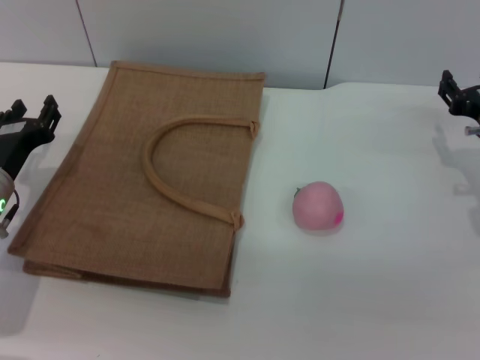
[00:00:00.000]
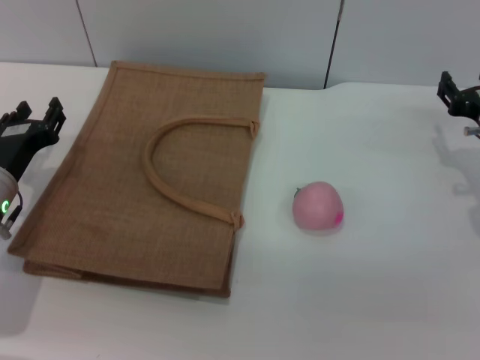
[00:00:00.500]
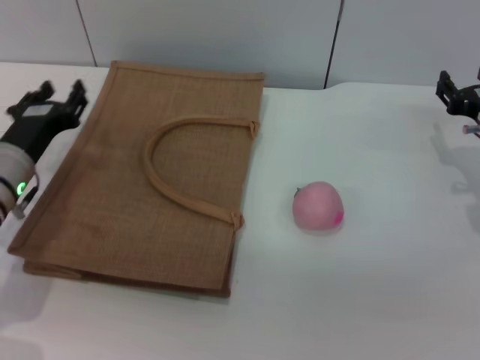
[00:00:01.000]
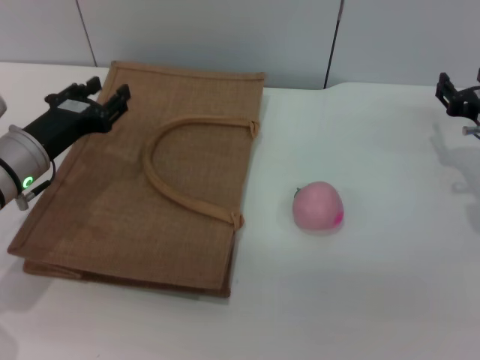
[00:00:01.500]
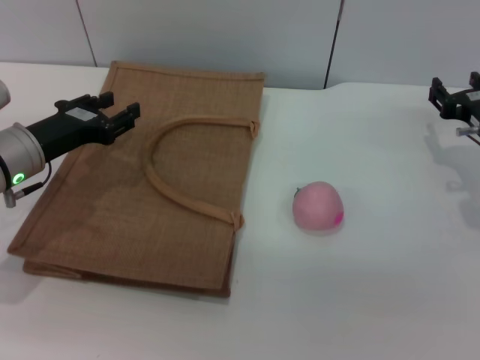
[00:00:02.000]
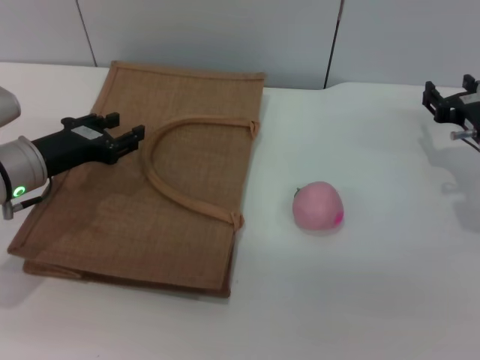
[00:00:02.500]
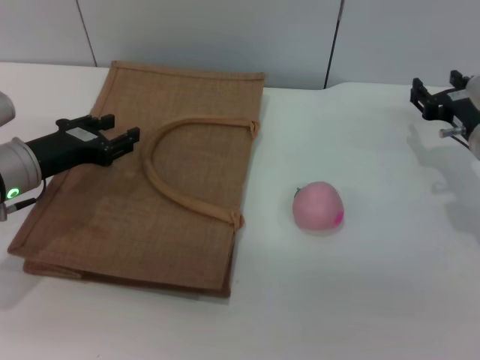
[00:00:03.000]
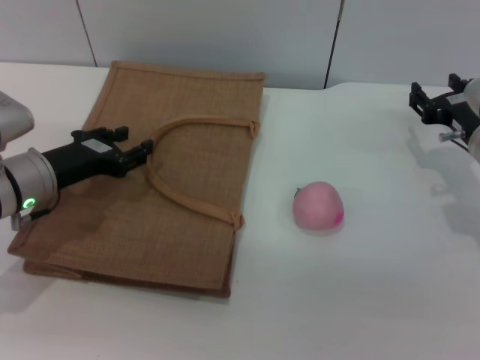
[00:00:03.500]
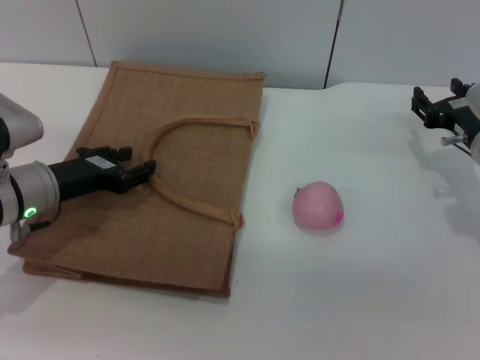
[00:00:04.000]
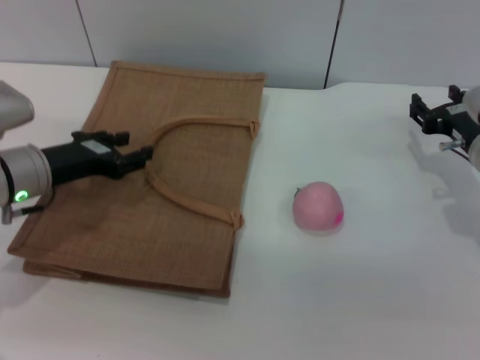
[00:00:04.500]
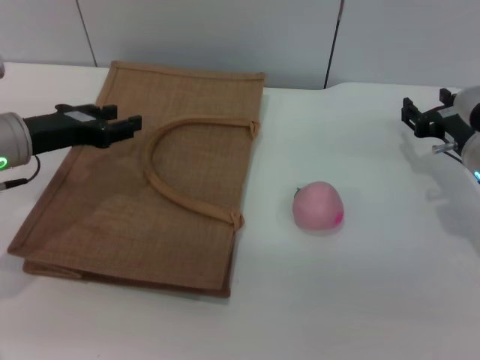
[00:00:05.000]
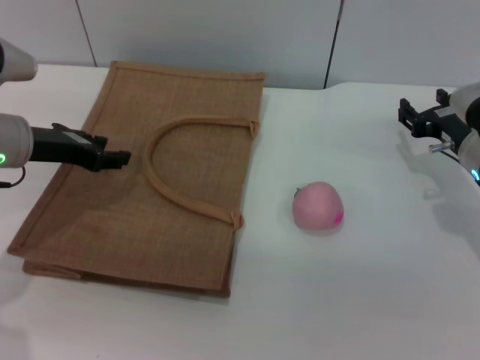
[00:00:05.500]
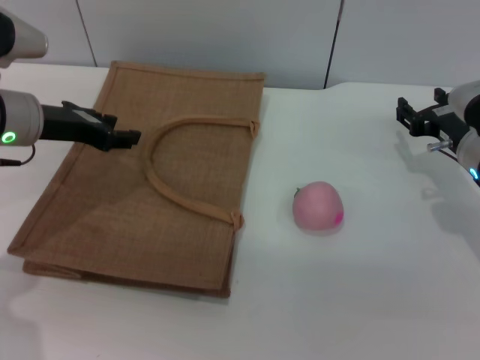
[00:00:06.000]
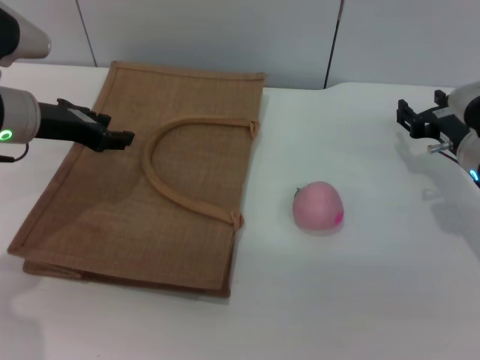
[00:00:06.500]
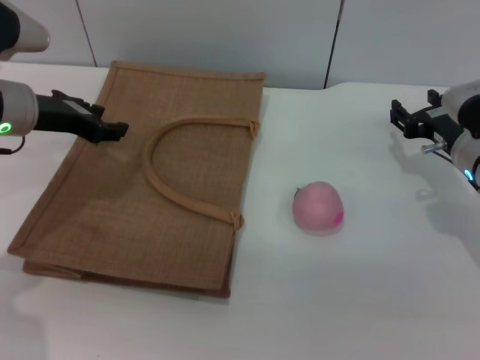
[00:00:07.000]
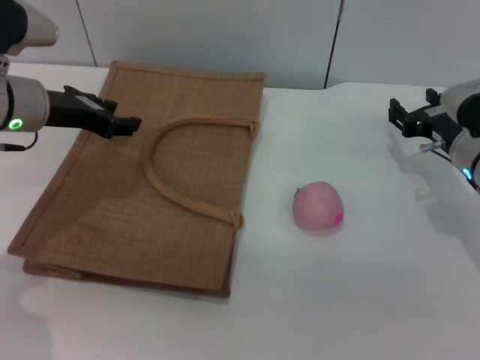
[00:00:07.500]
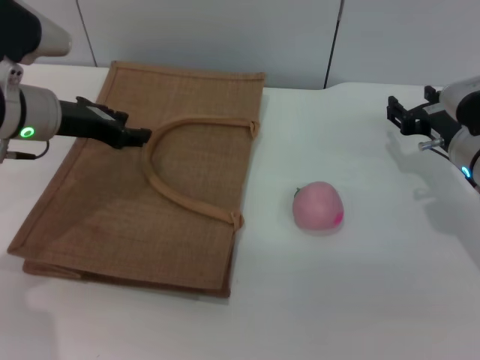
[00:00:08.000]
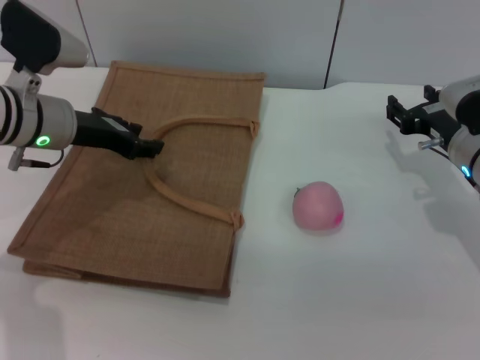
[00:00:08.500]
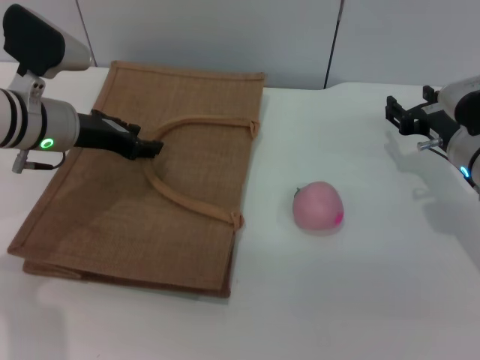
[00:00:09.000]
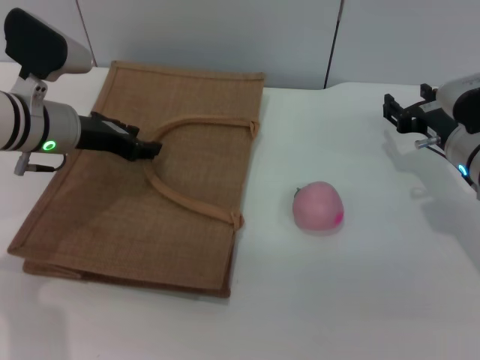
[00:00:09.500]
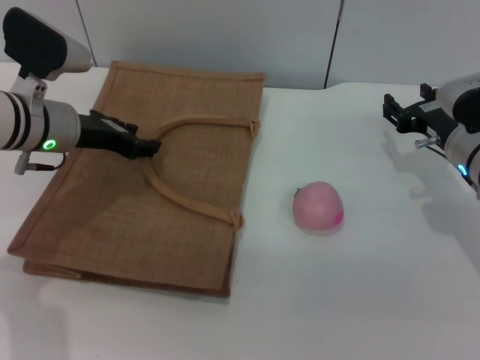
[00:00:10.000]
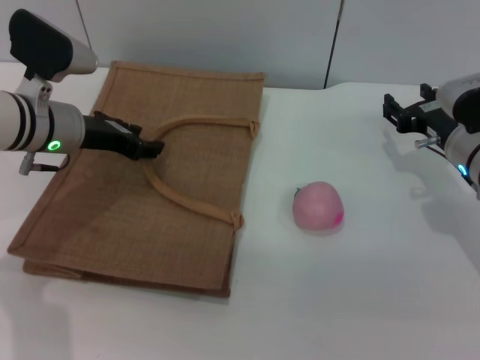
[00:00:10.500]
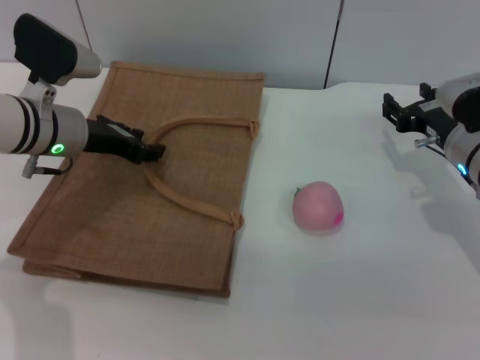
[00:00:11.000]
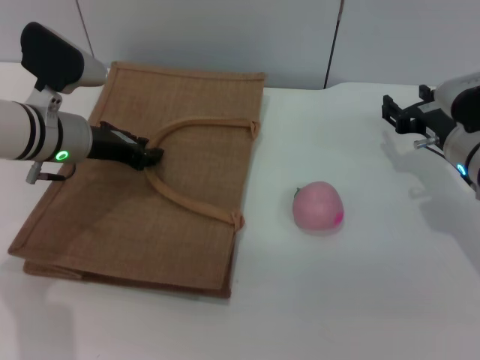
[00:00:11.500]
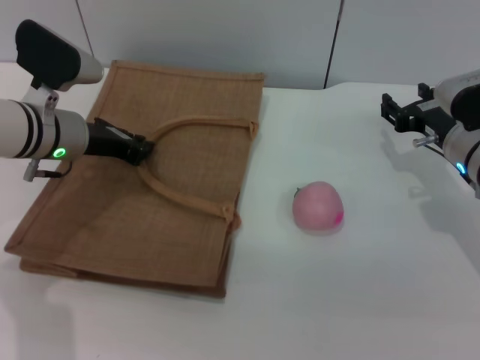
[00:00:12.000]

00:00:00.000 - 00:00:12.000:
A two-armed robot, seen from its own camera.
Task of the whole recording: pick up the peach from the table and place it in the brown handbag.
00:00:00.000 - 00:00:02.000: The left gripper moves some 5 cm.
00:00:02.000 - 00:00:04.000: The grippers make only small movements.
00:00:04.000 - 00:00:06.000: The left gripper goes about 10 cm upward.
00:00:06.000 - 00:00:10.000: There are only small adjustments of the grippers.
00:00:10.000 - 00:00:12.000: The left gripper closes its fingers.

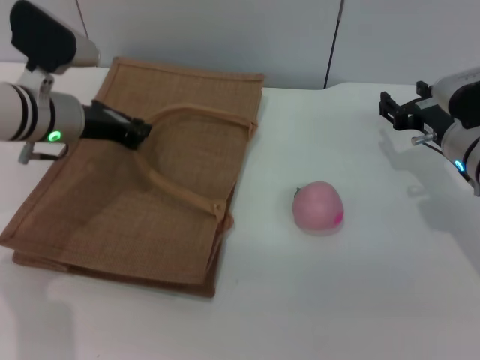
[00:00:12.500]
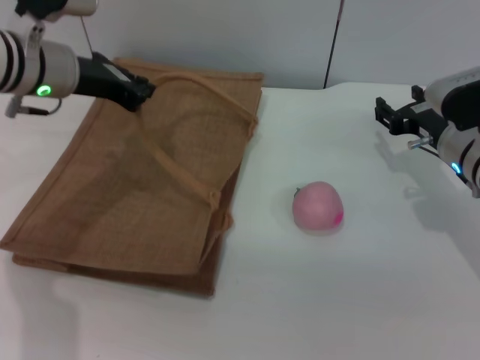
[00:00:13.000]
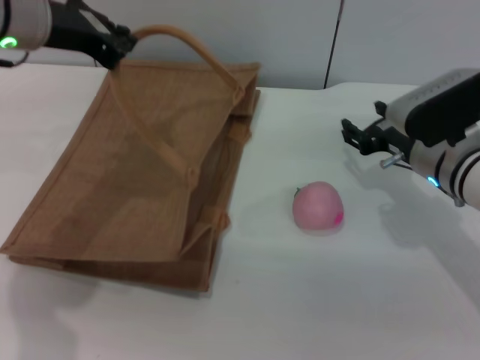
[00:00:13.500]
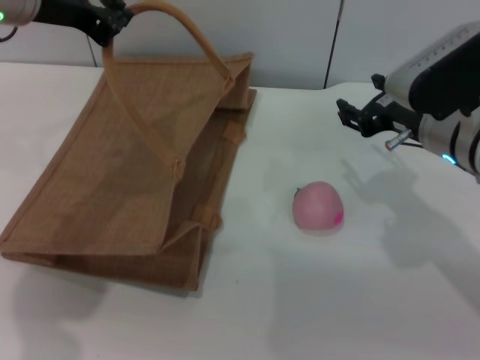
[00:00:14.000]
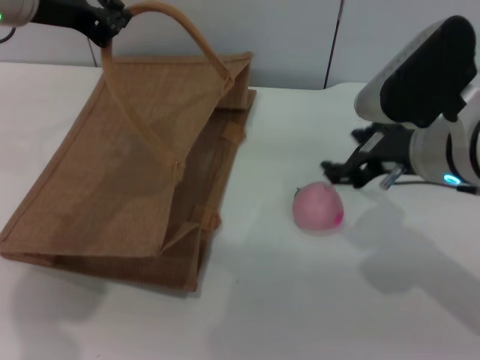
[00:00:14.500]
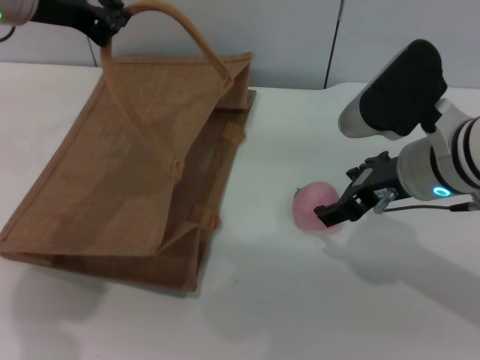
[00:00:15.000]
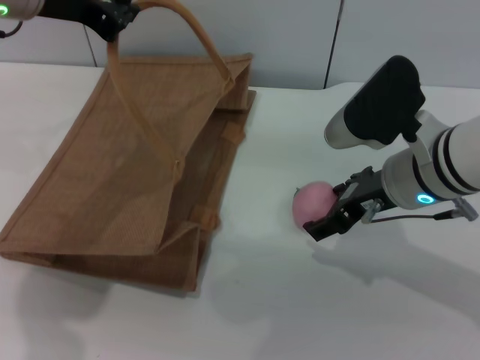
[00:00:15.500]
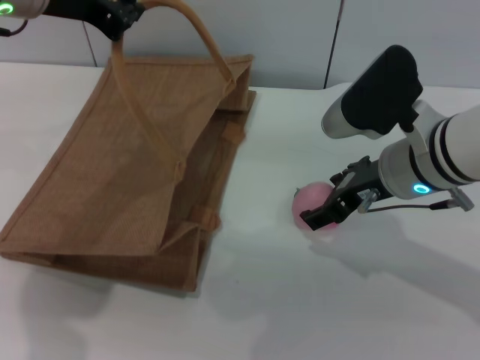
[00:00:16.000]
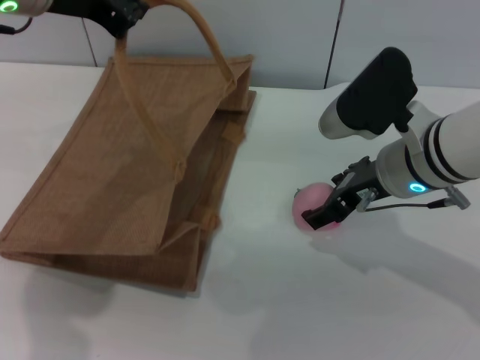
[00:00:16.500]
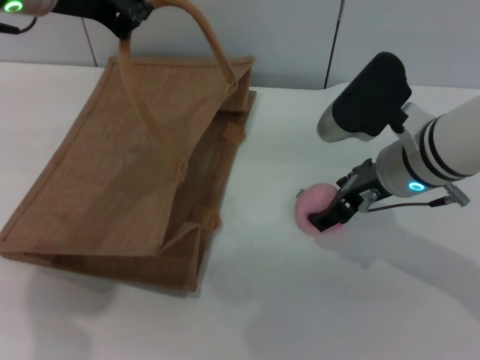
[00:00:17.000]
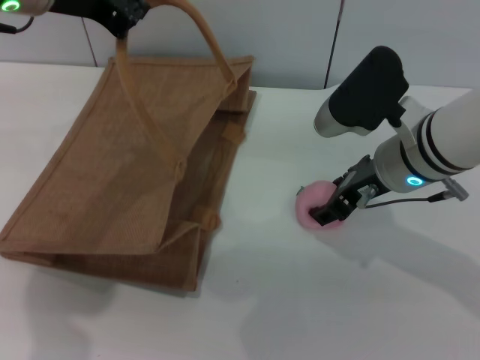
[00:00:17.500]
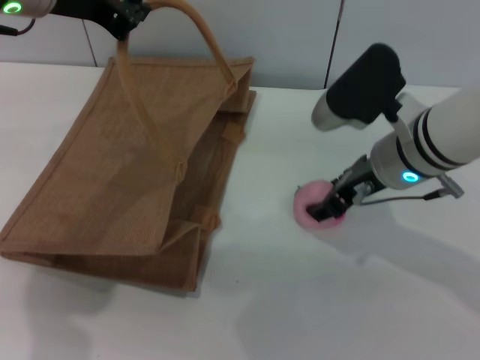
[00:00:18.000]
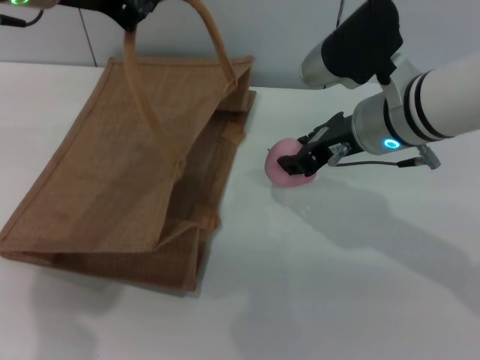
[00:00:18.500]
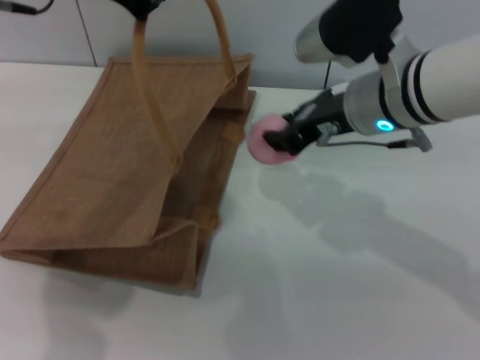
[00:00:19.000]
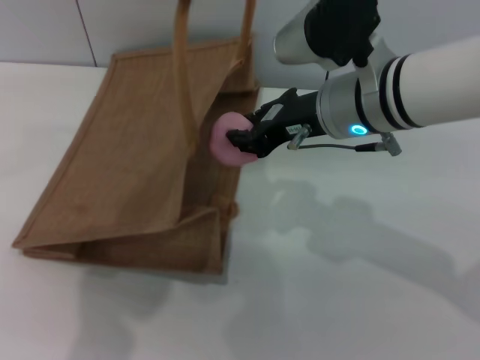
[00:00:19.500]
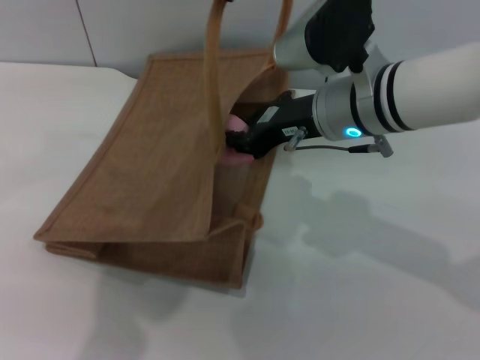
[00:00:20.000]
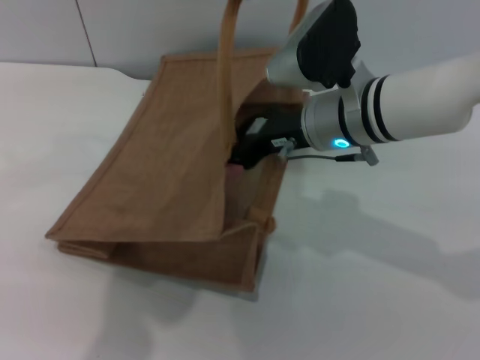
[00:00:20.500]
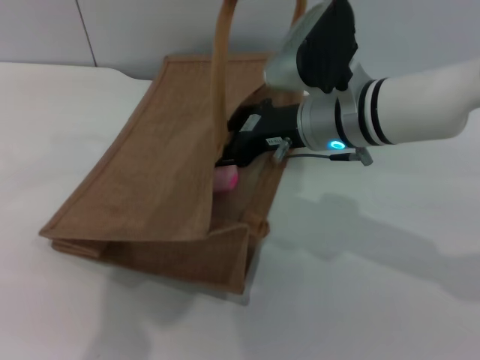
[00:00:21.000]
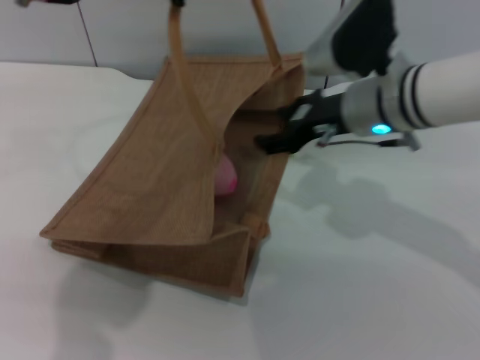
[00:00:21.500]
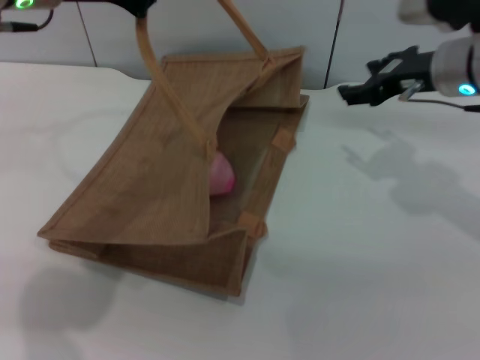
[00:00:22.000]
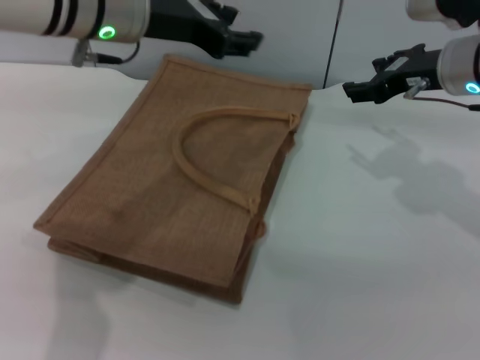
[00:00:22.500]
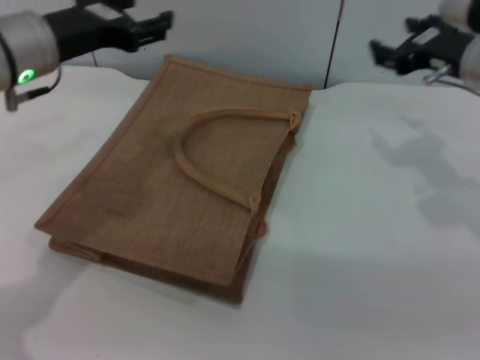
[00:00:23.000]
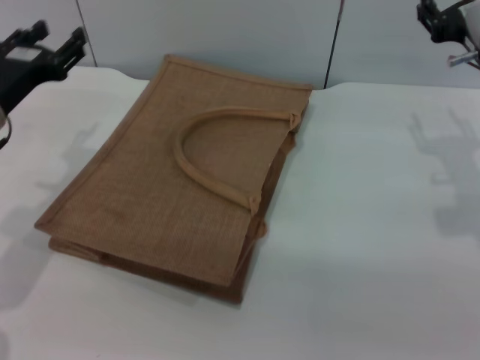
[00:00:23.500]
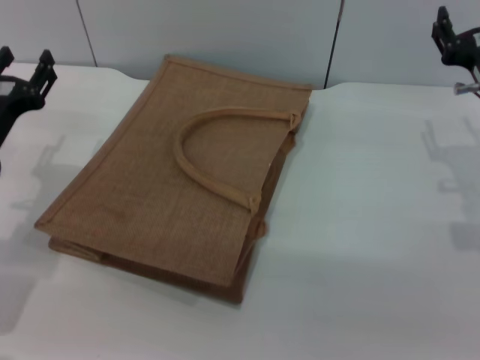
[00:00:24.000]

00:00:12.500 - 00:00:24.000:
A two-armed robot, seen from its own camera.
Task of the whole recording: pick up the peach from the table and place it in the brown handbag.
Step, 00:00:13.500 - 00:00:18.500: Pick up the peach with the right gripper.
Step, 00:00:19.000 - 00:00:21.500: Place the peach into the woven bag with the right gripper.
Step, 00:00:22.000 - 00:00:23.000: Lower the woven bag with the left gripper to close it.
00:00:12.500 - 00:00:14.500: The left gripper is displaced upward by approximately 15 cm. Meanwhile the right gripper goes some 15 cm upward, backward and to the left.
00:00:14.500 - 00:00:16.500: The grippers make only small movements.
00:00:16.500 - 00:00:18.500: The right gripper closes up.
00:00:18.500 - 00:00:20.000: The left gripper shifts some 10 cm to the right.
00:00:20.000 - 00:00:22.000: The left gripper shifts about 10 cm to the left; the right gripper heads to the right, covering some 10 cm, and opens its fingers.
00:00:22.000 - 00:00:24.000: The left gripper shifts roughly 25 cm downward and to the left, and opens its fingers; the right gripper heads downward, covering approximately 5 cm.
